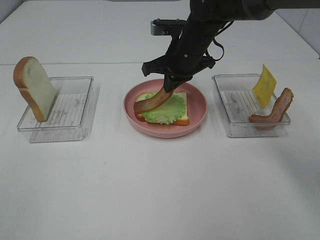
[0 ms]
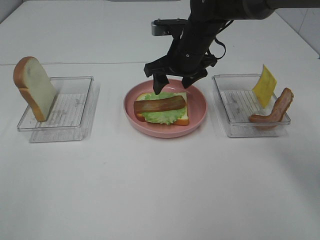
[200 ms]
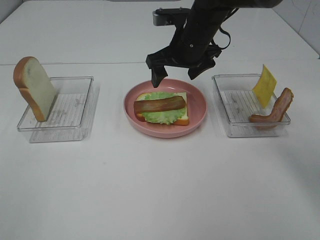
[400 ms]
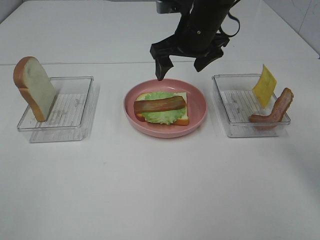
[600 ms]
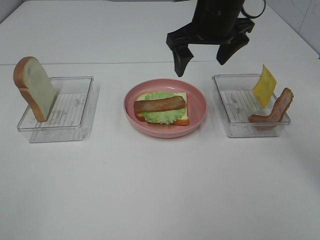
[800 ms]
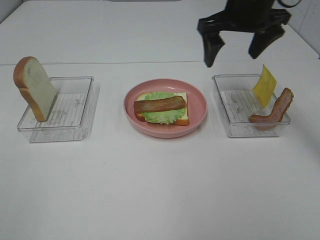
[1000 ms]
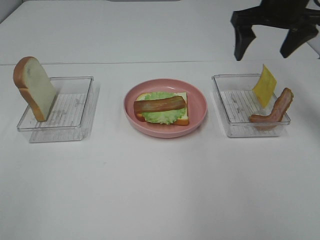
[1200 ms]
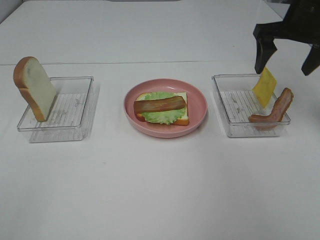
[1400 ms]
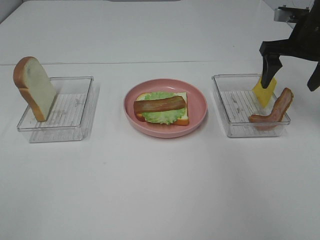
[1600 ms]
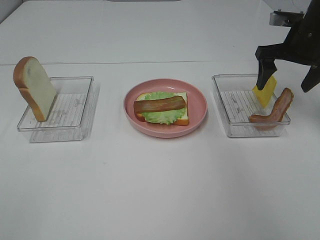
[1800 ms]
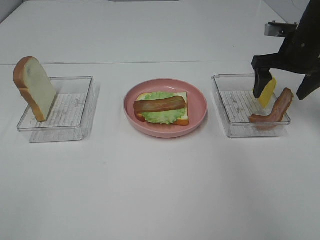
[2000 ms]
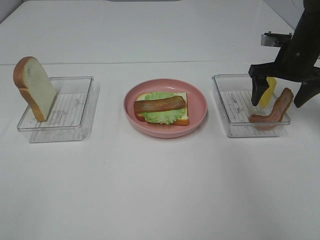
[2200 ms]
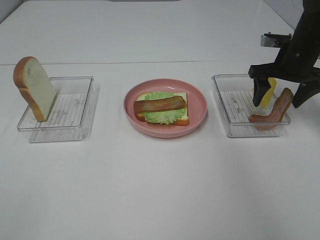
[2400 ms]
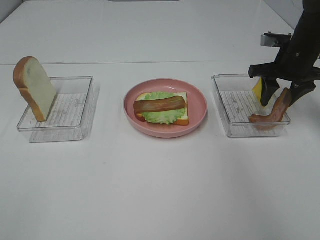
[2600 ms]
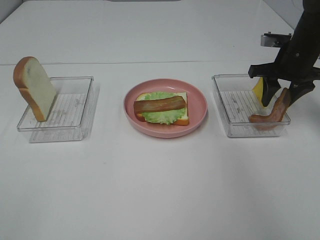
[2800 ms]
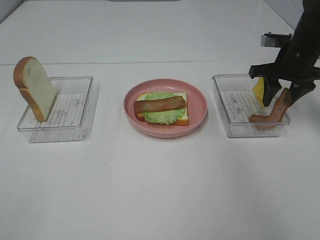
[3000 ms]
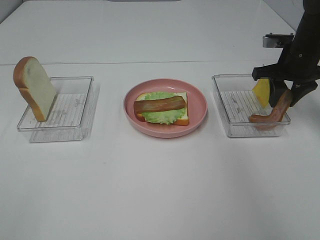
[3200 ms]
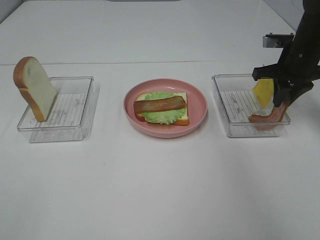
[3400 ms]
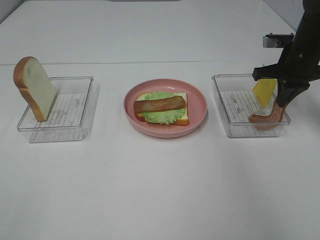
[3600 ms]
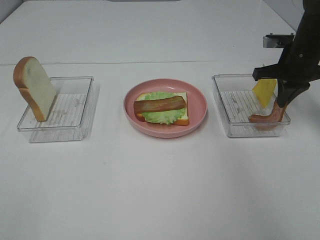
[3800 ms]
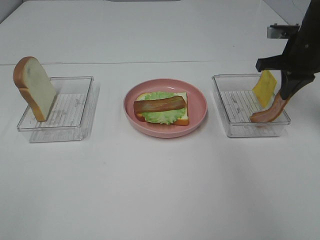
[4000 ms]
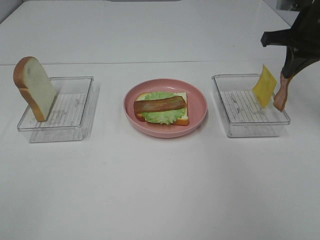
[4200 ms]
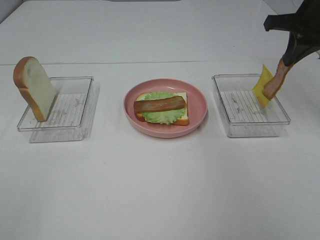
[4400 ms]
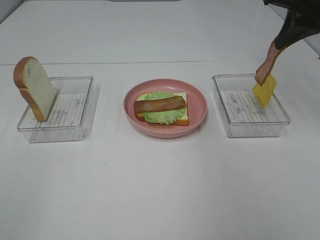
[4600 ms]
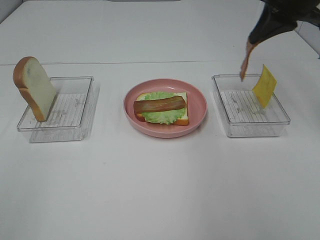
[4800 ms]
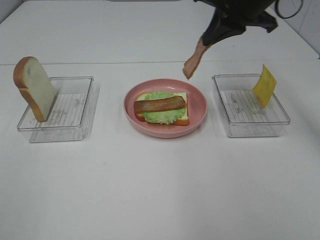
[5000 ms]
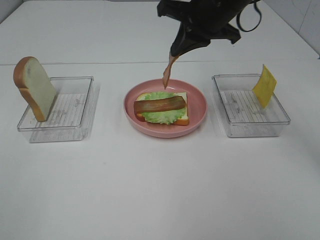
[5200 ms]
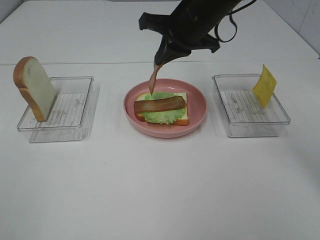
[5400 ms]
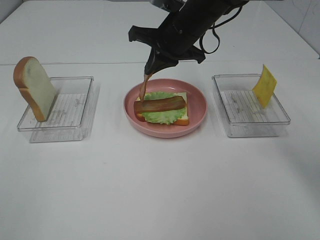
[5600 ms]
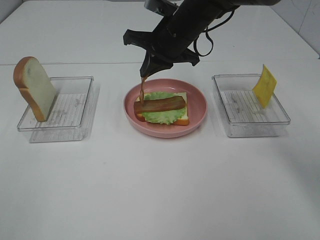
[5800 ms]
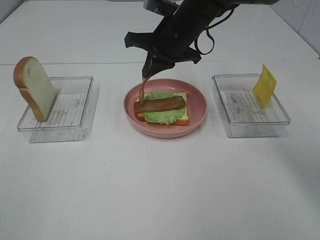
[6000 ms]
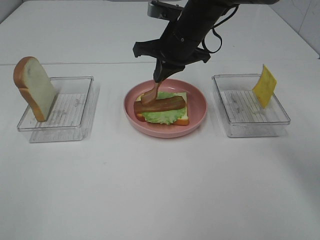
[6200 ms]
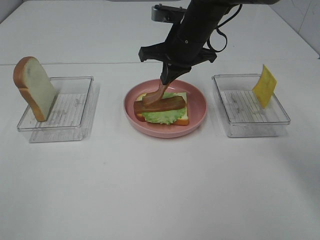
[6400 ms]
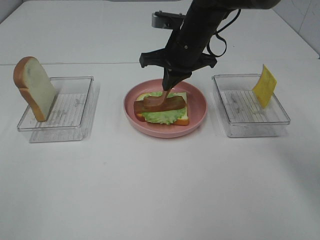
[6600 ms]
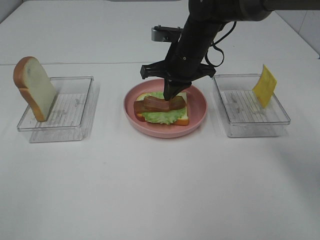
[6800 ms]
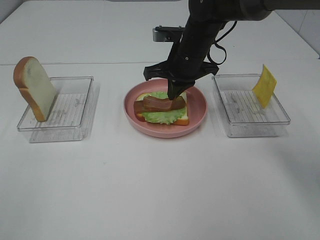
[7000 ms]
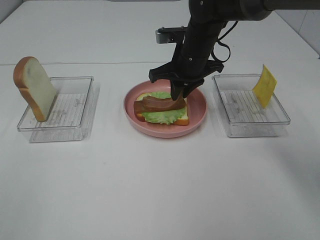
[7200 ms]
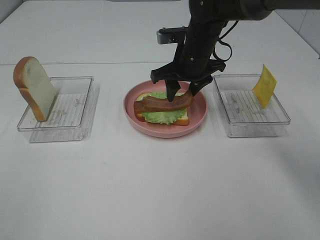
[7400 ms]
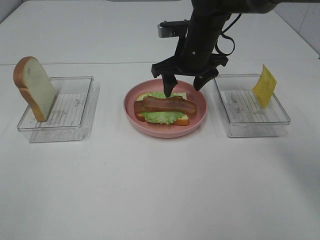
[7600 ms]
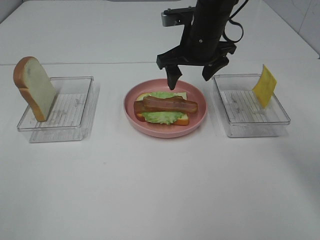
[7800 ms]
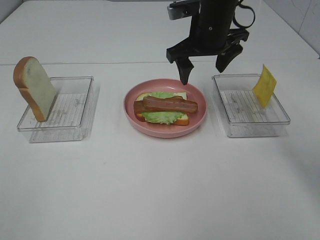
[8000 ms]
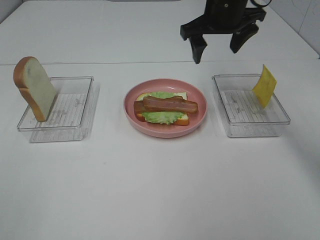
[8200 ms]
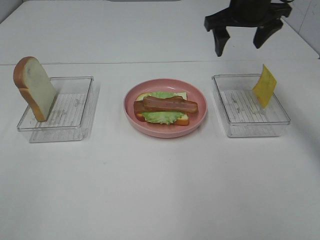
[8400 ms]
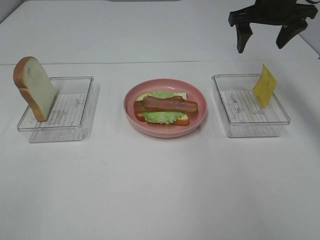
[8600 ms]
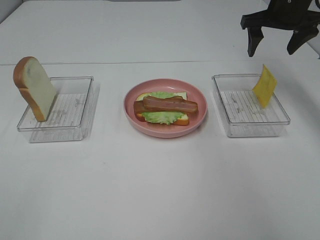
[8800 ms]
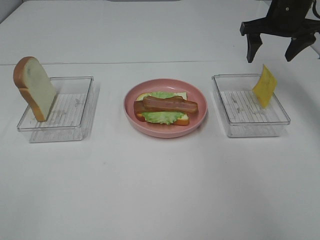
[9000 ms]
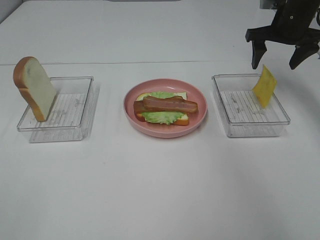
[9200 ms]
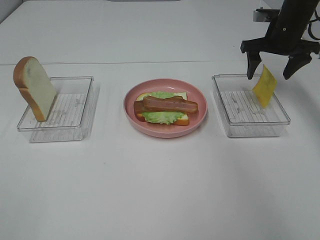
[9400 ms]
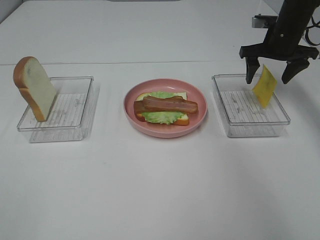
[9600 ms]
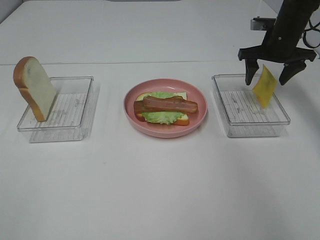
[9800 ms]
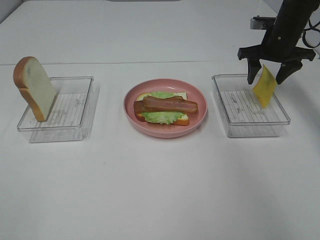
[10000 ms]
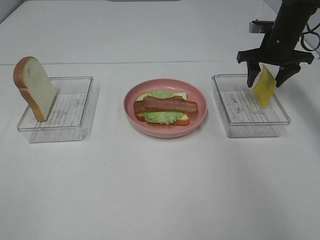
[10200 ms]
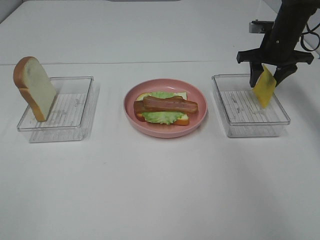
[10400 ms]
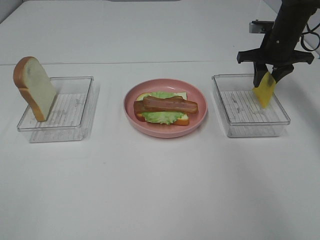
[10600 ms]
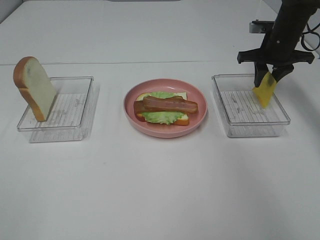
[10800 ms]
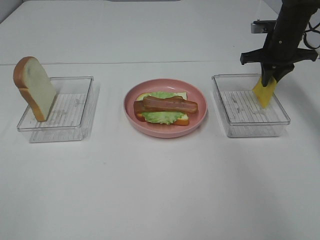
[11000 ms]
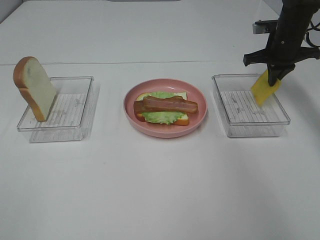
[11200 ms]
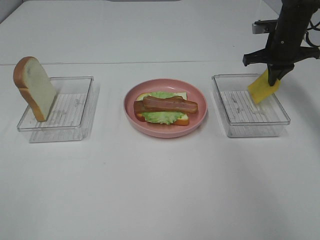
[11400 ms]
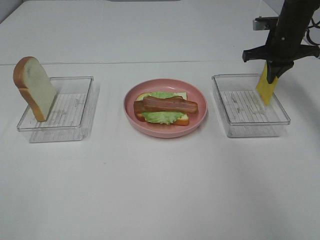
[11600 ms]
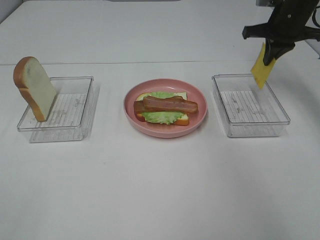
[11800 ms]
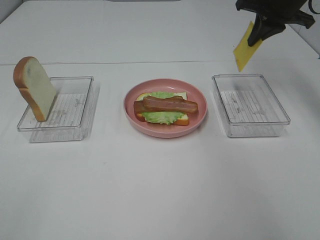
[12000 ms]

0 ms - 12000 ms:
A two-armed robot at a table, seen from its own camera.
Task of the whole recording: Make sandwiches.
Step, 600 ms - 3800 ms: Right hand:grab the bacon.
Step, 4000 ms - 7600 ms: Right hand:place bacon on bacon.
Step, 7800 ms - 11400 ms: Right hand:grab the cheese slice.
0 ms - 1600 ms: The right gripper moves to the right, about 20 cm, and opens up.
1600 ms - 3000 ms: The right gripper heads downward, covering roughly 5 cm, and closes up.
3000 ms - 4400 ms: The right gripper goes approximately 10 cm upward, and closes.
4400 ms - 6000 ms: The right gripper moves to the left, approximately 20 cm.
6000 ms - 7600 ms: The right gripper opens.
7600 ms - 9000 ms: The right gripper goes about 20 cm to the right.
9000 ms - 10400 ms: The right gripper goes approximately 5 cm downward.
10400 ms - 12000 ms: The right gripper shifts some 10 cm upward, and closes its fingers.

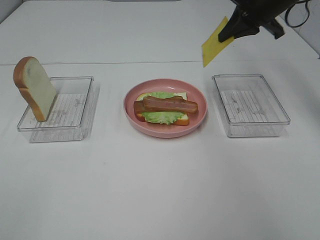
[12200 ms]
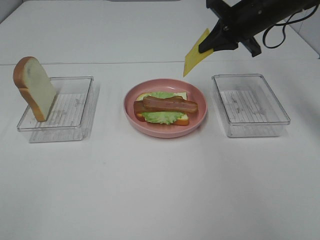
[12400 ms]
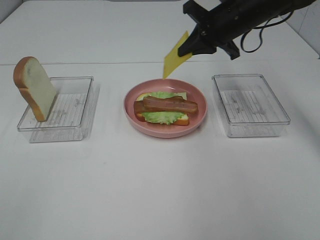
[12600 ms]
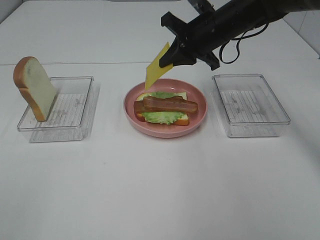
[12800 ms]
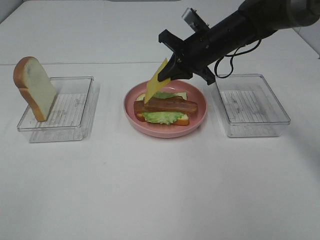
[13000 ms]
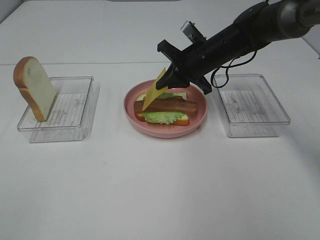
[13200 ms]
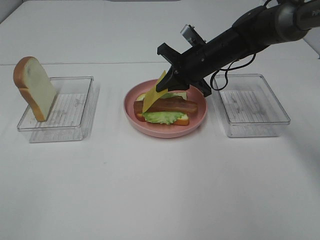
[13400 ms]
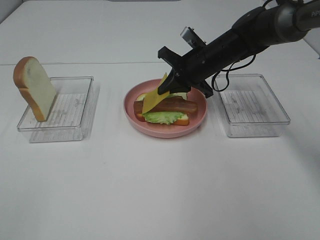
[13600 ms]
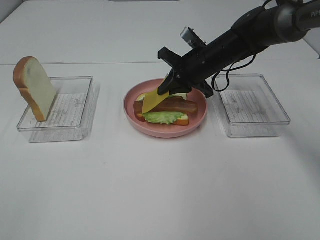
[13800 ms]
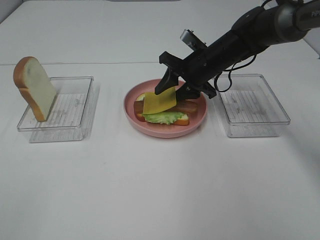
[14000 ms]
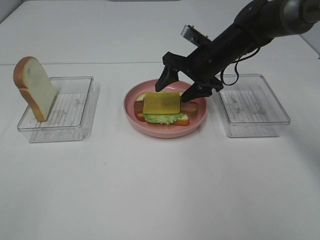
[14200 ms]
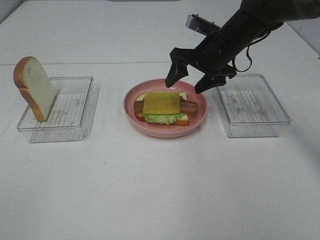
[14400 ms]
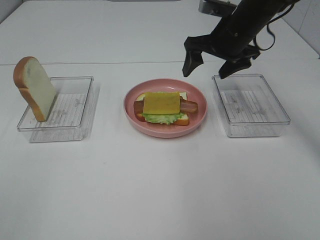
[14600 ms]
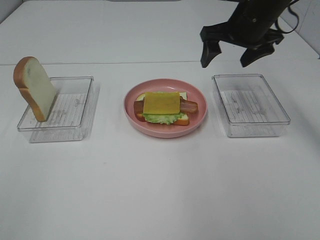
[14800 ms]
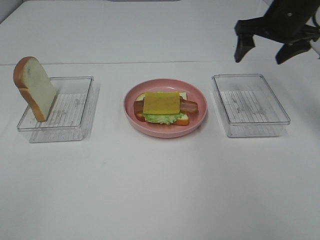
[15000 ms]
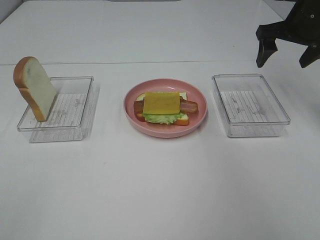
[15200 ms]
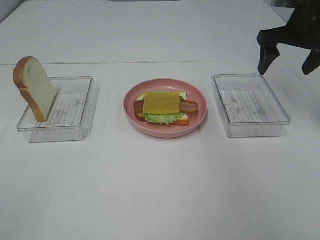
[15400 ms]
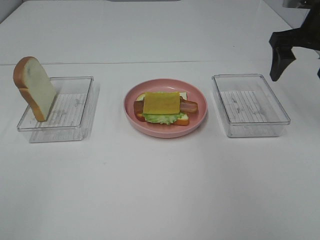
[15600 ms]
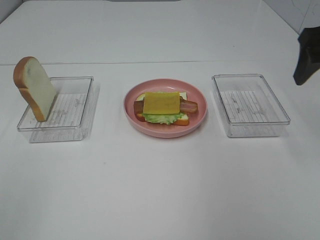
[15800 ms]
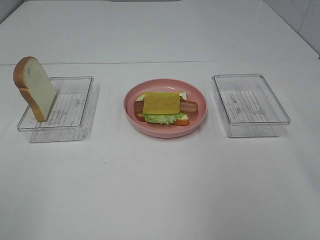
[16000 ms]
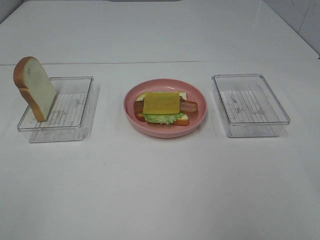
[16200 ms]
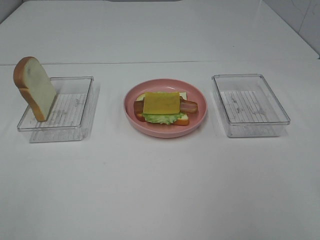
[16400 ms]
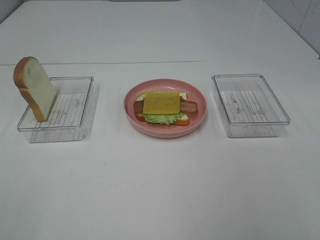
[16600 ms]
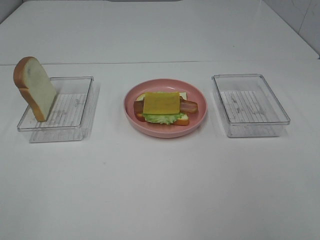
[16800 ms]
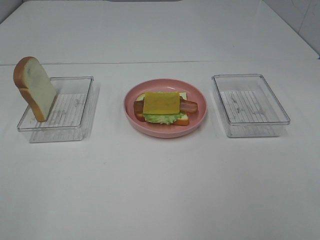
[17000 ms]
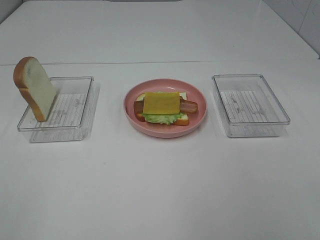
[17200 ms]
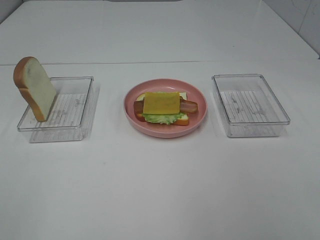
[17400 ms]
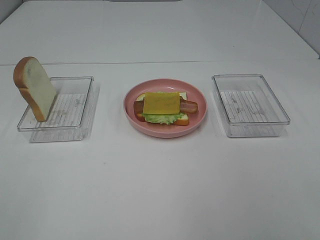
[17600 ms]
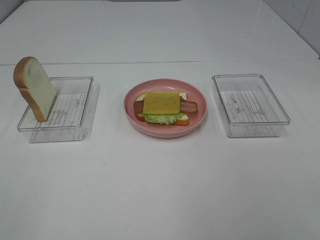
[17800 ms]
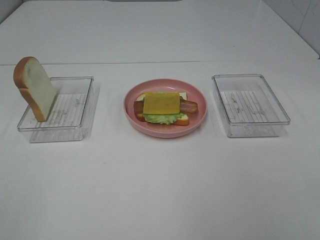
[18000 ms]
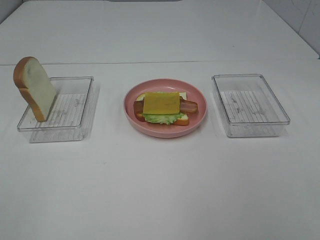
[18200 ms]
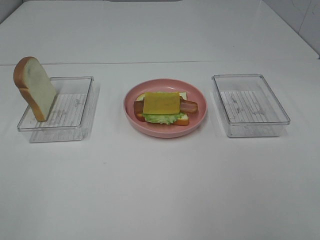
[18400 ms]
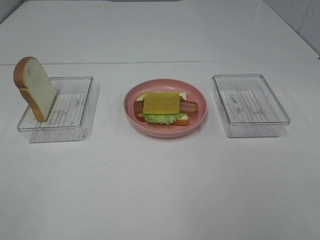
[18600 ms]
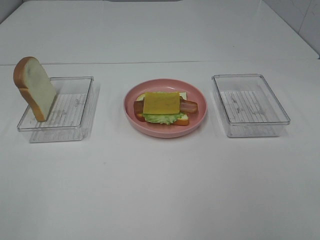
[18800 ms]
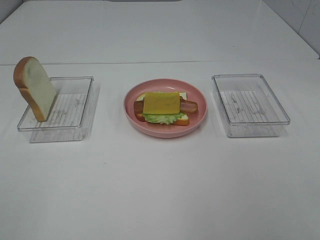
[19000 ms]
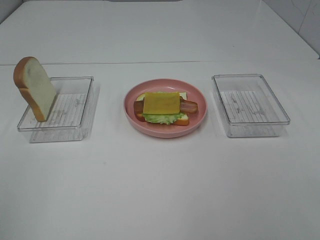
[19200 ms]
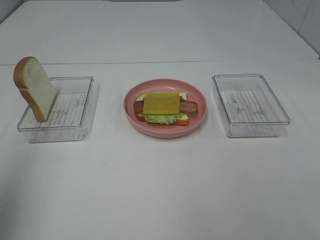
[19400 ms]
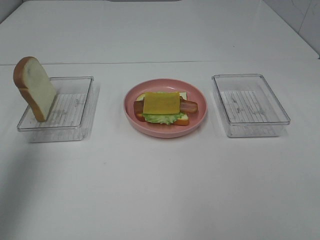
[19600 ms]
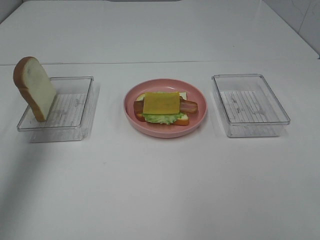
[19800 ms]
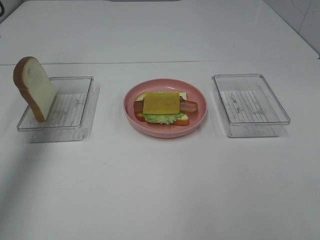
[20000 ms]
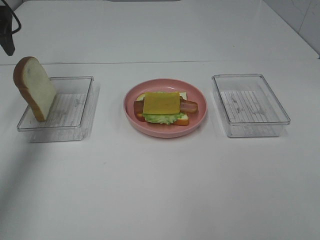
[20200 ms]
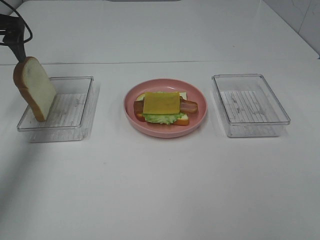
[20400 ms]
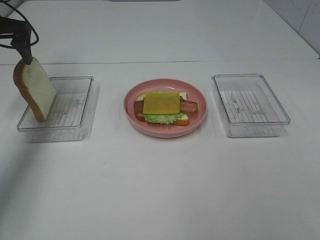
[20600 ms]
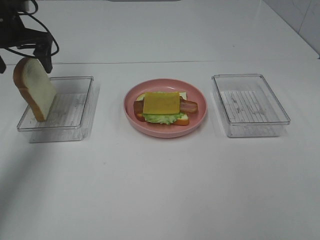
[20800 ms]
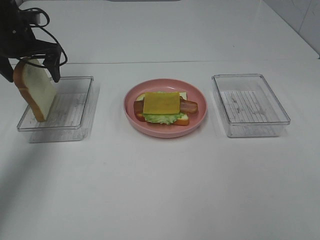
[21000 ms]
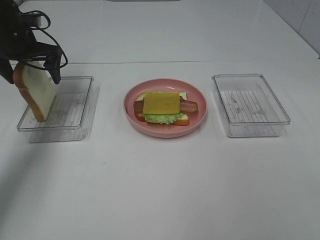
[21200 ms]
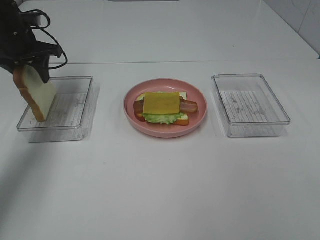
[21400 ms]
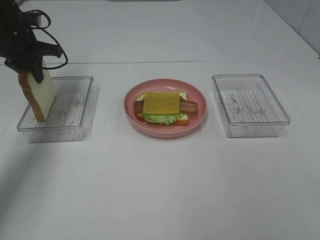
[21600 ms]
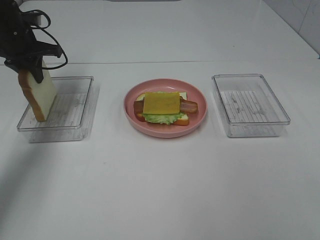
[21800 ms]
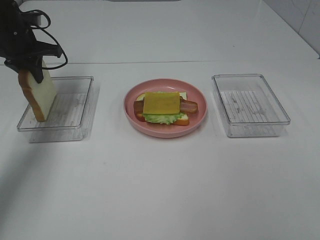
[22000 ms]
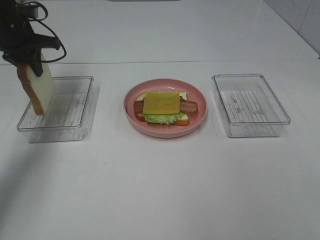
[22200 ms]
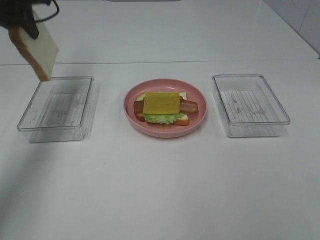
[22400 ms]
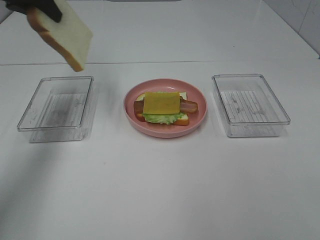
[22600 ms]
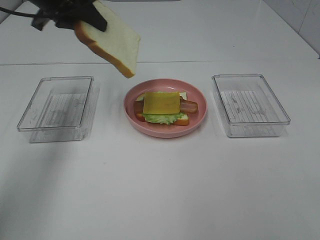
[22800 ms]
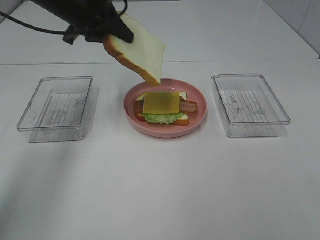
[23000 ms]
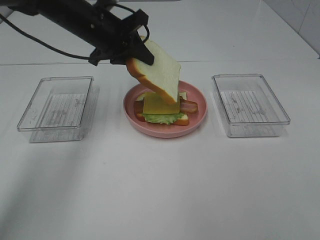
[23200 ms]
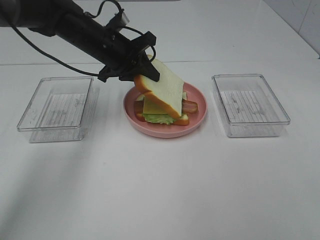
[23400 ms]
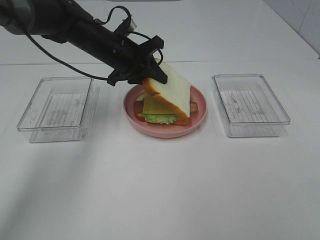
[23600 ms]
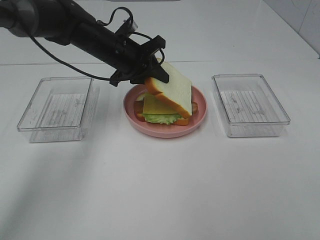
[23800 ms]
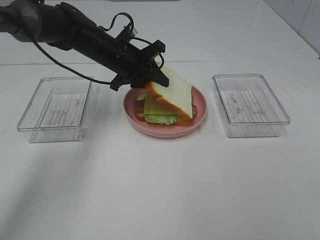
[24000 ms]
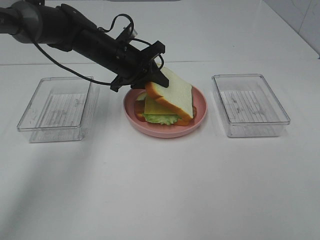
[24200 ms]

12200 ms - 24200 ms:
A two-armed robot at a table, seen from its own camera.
Task of the whole recording: Make sandwiches.
Step, 12200 ms - 14200 ms: Right hand:place the cheese slice on top of the bacon.
Step, 14400 ms - 21600 ms: Left hand:grab the bread slice.
12200 ms - 13800 ms: The right gripper goes approximately 15 cm downward and to the left.
13800 ms - 15200 ms: The right gripper heads to the right and upward, covering roughly 20 cm, and opens.
15200 ms - 16600 ms: The right gripper goes some 35 cm backward.
18200 ms - 19800 ms: The left gripper goes about 35 cm forward.
19800 ms - 21200 ms: The left gripper goes approximately 25 cm downward and forward.
21200 ms - 22600 ms: The left gripper goes roughly 15 cm upward and backward, and closes its fingers.
22600 ms - 24200 ms: The left gripper moves downward and to the right, roughly 25 cm.
